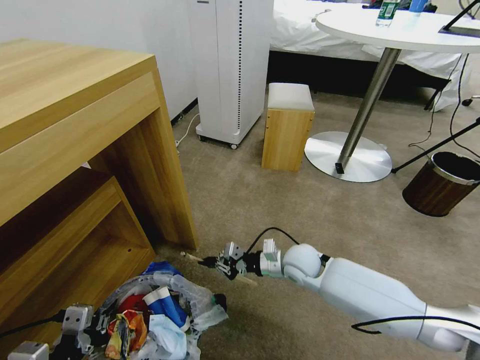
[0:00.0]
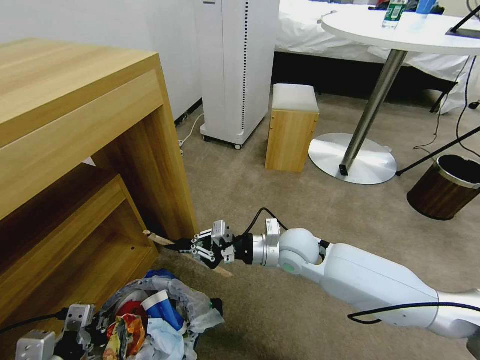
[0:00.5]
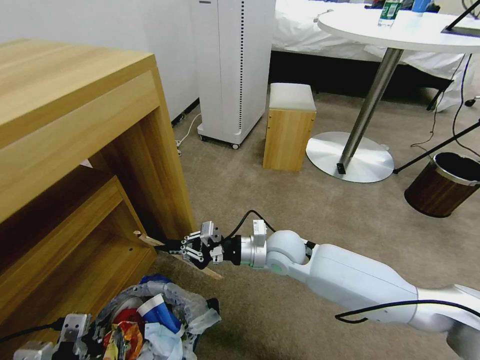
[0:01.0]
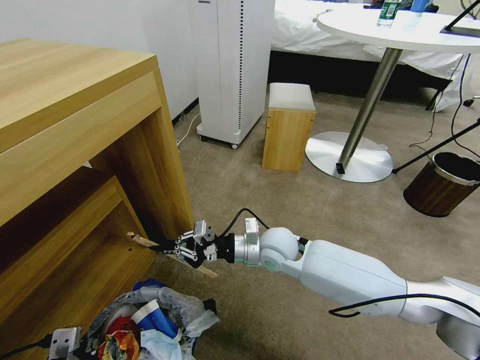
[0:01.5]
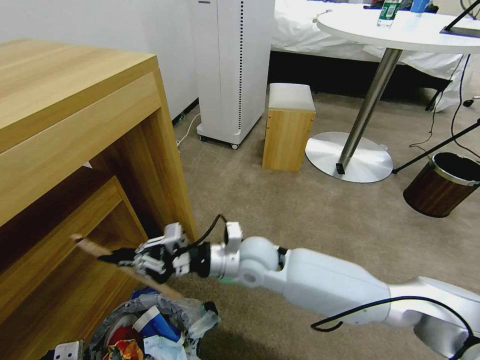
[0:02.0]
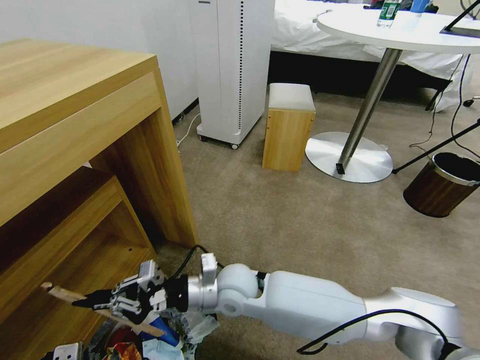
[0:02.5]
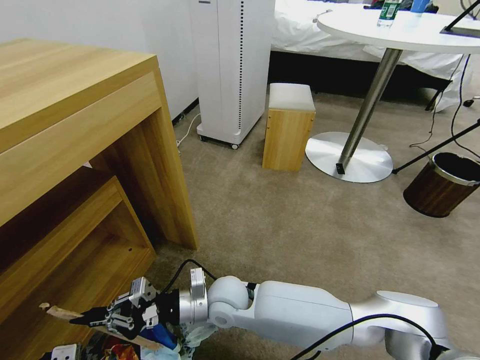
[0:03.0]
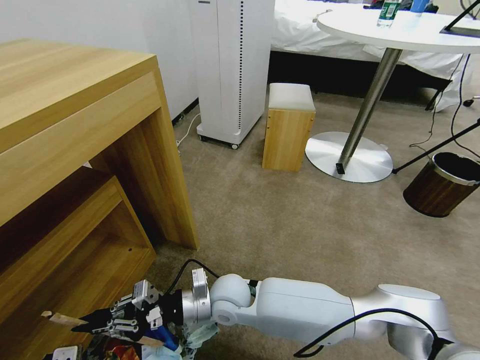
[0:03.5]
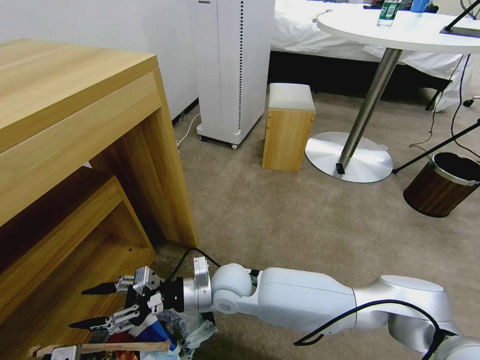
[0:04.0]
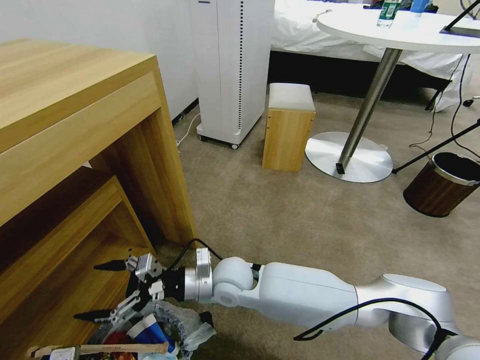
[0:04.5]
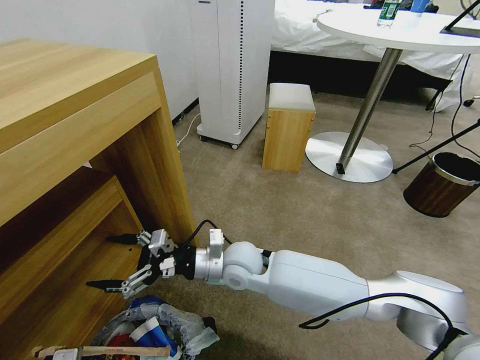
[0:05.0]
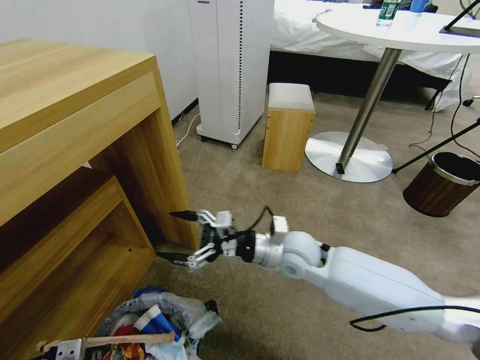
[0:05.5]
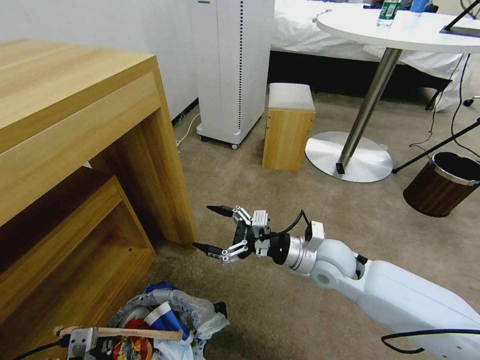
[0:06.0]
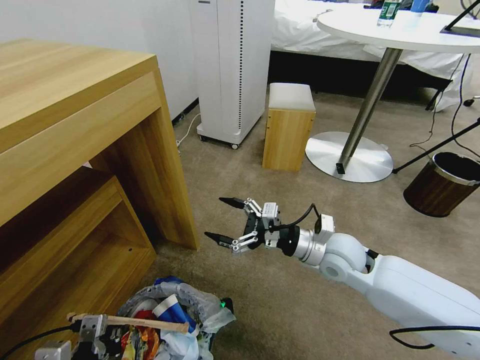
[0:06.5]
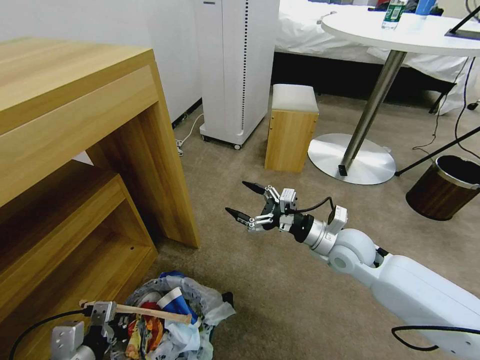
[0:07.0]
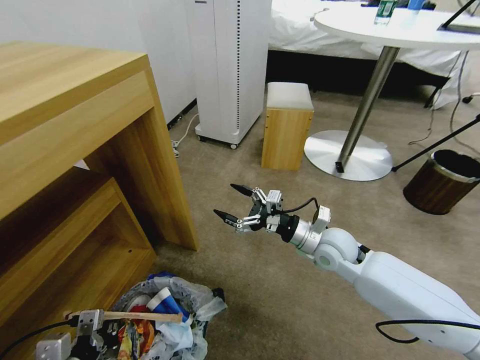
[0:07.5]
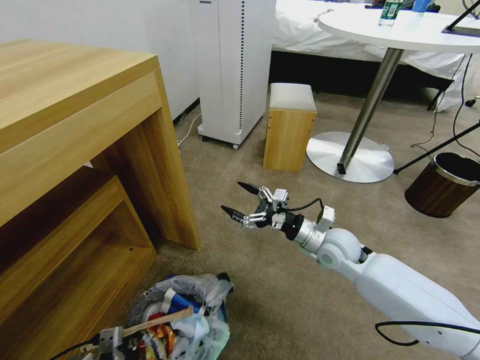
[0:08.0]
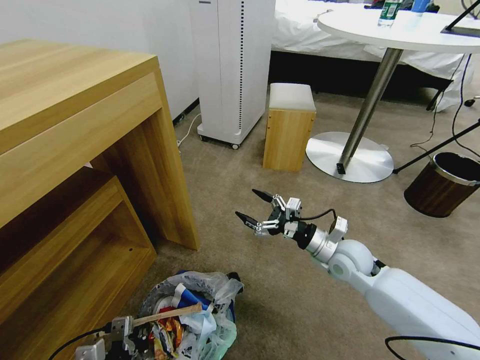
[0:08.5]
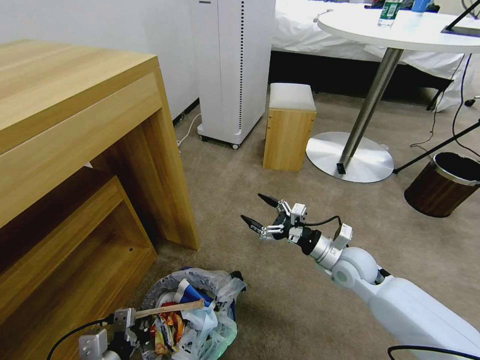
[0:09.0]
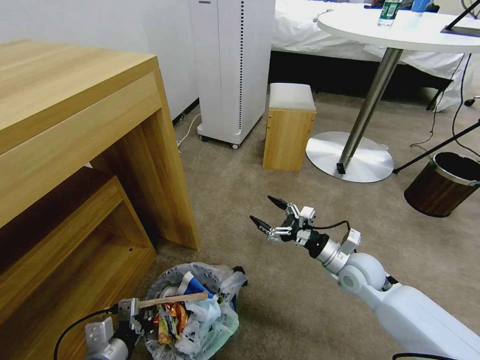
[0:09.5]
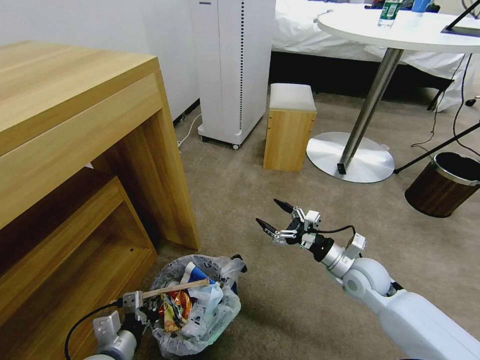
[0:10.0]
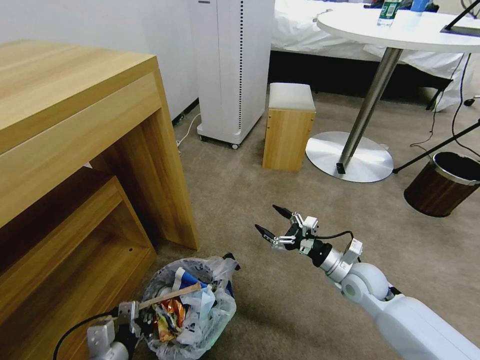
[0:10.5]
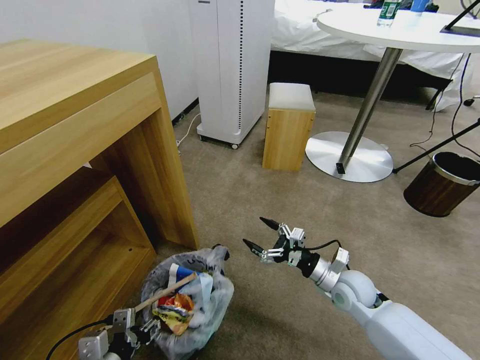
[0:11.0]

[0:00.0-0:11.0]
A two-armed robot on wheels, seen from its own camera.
Task of the whole recording: Pick up the trash bin and place the garbage on the floor into it.
0:00.0 to 0:02.0: The right gripper travels to the left and upward by approximately 15 cm; the left gripper shifts by roughly 5 cm.
0:02.0 to 0:03.5: The right gripper travels downward and to the left by some 10 cm.
0:03.5 to 0:05.5: The right gripper moves to the right, upward and forward, about 20 cm, and opens up.
0:05.5 to 0:07.5: The left gripper moves forward, approximately 5 cm. Meanwhile the right gripper travels to the right by about 10 cm.
0:07.5 to 0:09.0: The left gripper travels downward by roughly 5 cm. Meanwhile the right gripper shifts by about 5 cm.
0:09.0 to 0:11.0: The left gripper opens up; the right gripper goes about 5 cm downward.

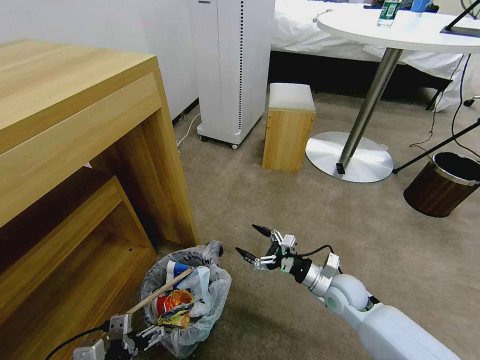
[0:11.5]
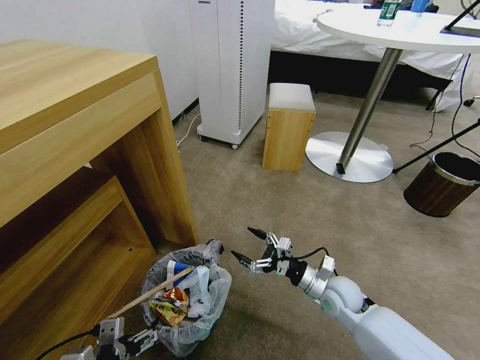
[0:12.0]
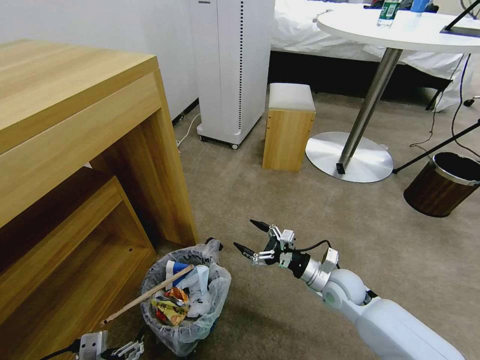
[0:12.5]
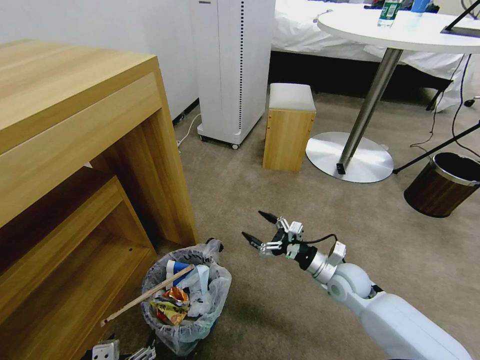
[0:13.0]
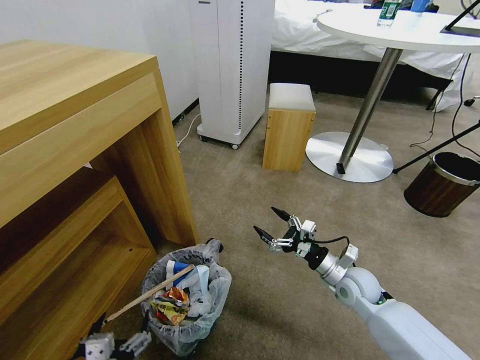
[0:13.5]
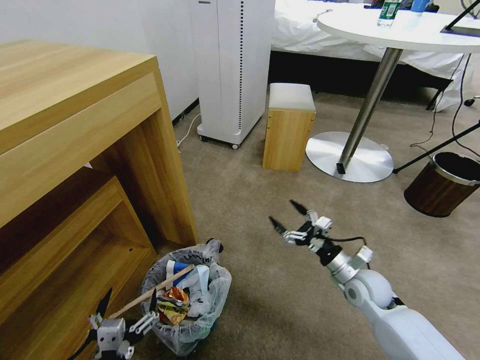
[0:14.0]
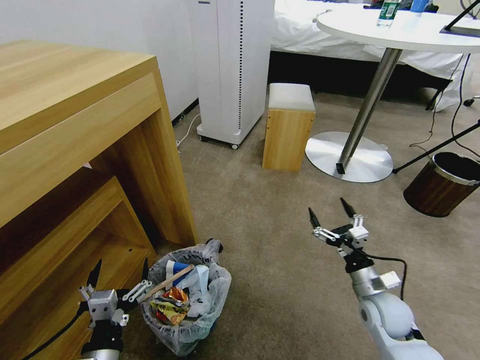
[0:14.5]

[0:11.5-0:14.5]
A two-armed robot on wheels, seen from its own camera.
Task of the whole recording: Pick up the trash bin and place the garbage on the floor into it.
0:11.5 to 0:13.0: The left gripper heads backward, covering some 5 cm.
0:13.0 to 0:14.5: The right gripper moves backward and to the right, approximately 10 cm. The left gripper is displaced forward by roughly 5 cm.
